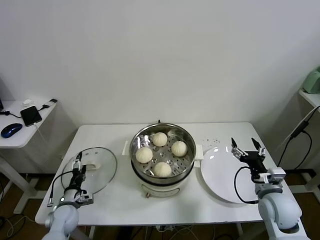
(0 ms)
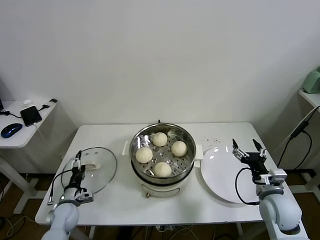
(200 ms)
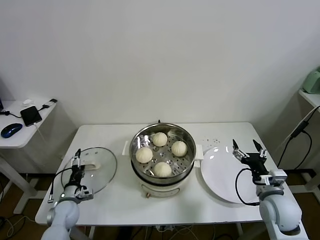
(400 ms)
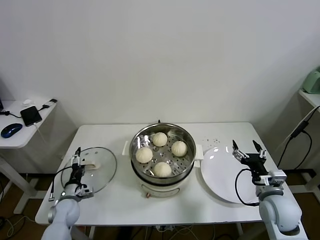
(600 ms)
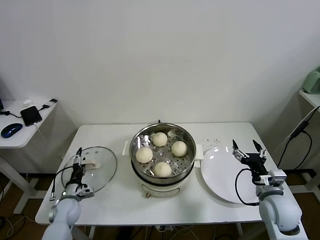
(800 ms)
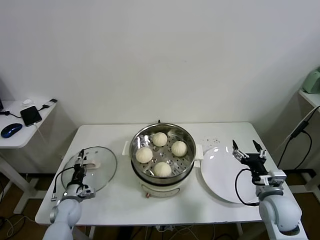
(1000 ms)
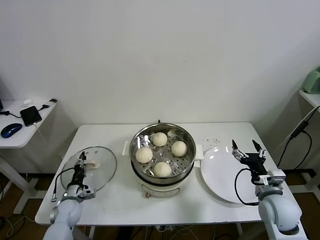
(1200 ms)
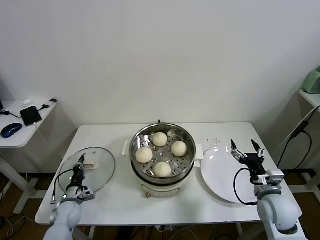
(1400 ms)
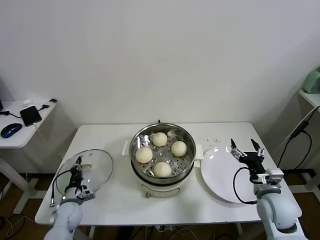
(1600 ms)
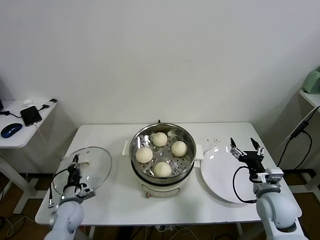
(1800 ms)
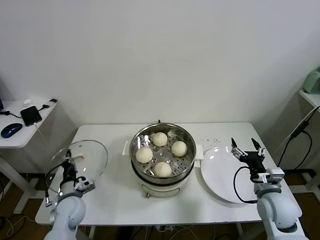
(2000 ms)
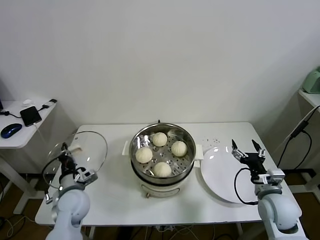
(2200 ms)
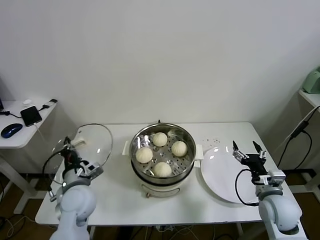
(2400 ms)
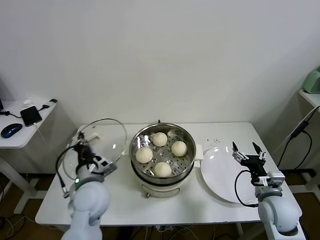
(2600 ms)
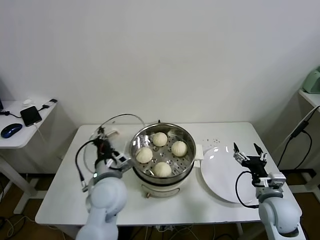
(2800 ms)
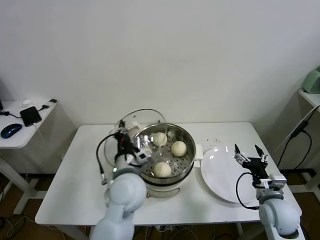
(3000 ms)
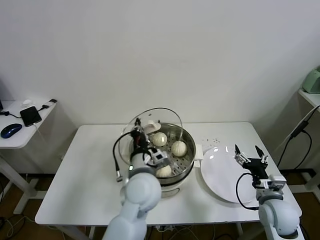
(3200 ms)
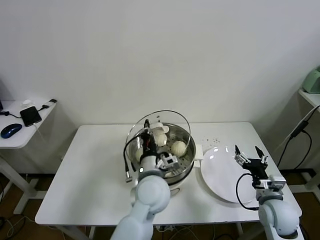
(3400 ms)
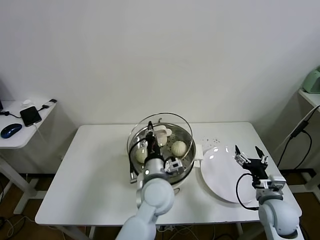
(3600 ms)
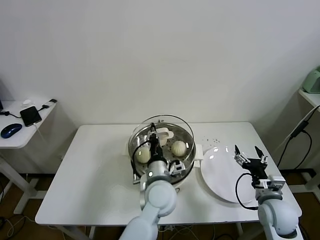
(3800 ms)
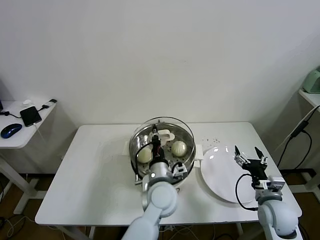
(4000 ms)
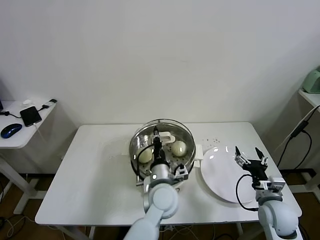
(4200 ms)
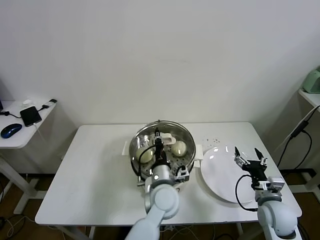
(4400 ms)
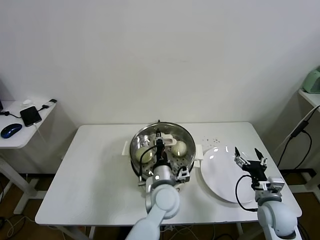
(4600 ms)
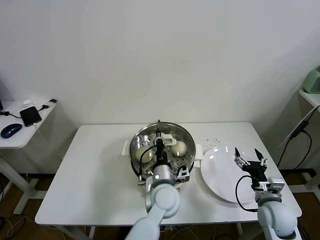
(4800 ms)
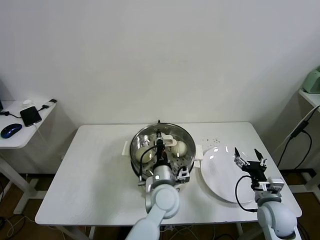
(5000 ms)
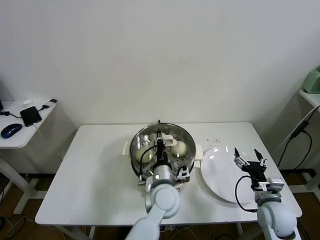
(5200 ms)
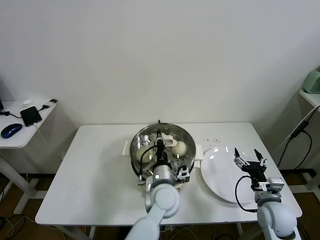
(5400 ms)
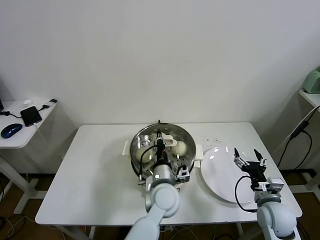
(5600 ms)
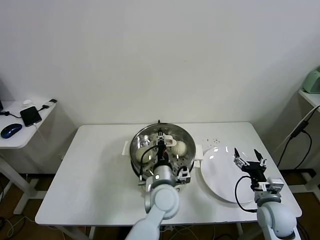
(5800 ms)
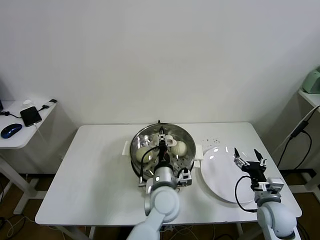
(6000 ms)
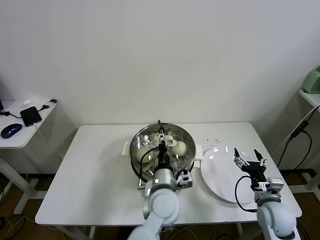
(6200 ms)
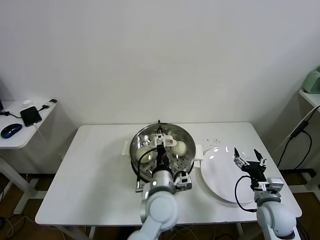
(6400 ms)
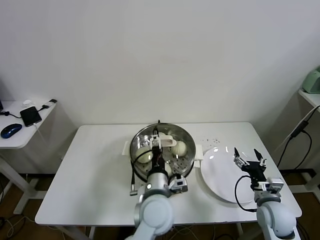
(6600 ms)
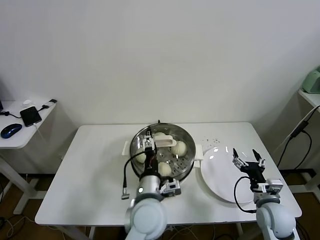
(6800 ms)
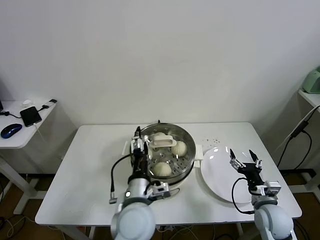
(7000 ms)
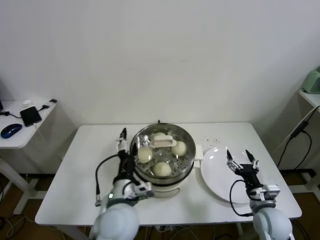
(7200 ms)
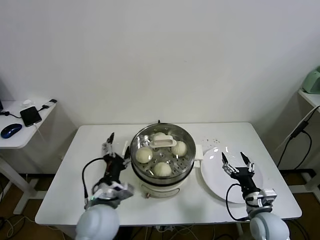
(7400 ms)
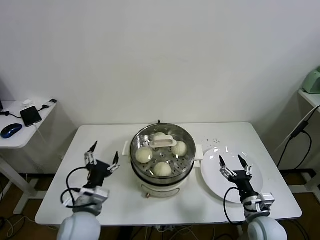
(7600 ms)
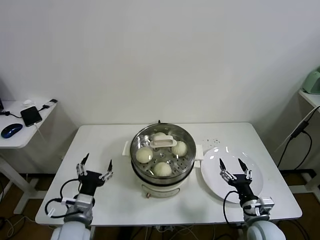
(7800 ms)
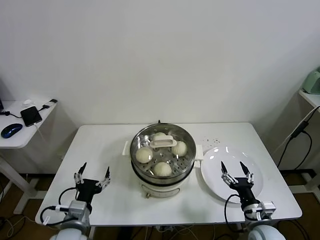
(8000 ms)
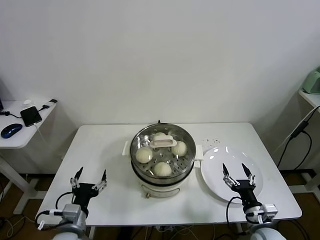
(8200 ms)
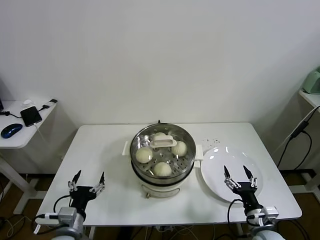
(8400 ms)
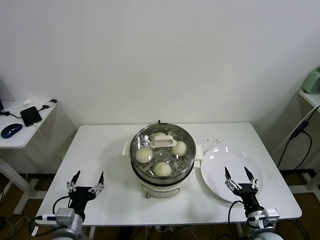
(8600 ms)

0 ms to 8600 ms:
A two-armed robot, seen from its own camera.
Task of the whole recording: take steamed baozi put them in steamer.
Step, 1600 ms to 5800 ms: Place the pot lid on the steamer with left gripper.
0 ms to 1400 ms: The left gripper closes up.
1400 ms to 2800 ms: The left gripper moves upward and to the right, roughly 35 cm.
2800 ms to 4400 ms: The left gripper shifts about 15 cm to the right.
4400 ms to 5800 ms: Both grippers stay put.
5800 ms to 7200 ms: The left gripper moves to the left, backward and upward, about 15 cm, and opens.
7200 ms to 8600 ms: The right gripper shifts some 5 cm backward. The left gripper goes approximately 20 cm to the left and downward.

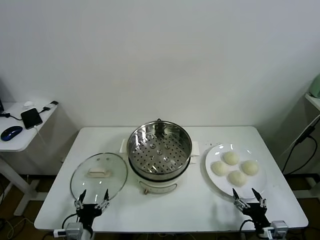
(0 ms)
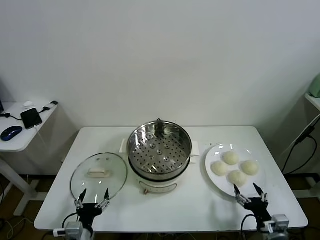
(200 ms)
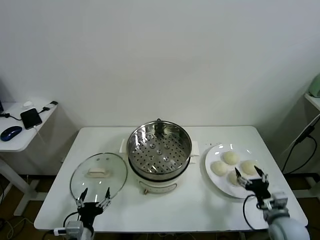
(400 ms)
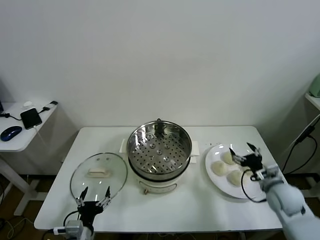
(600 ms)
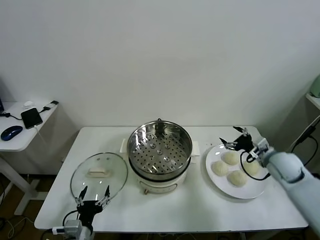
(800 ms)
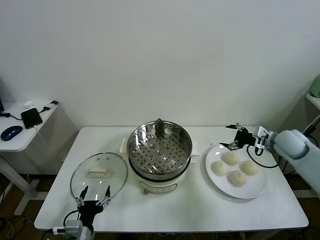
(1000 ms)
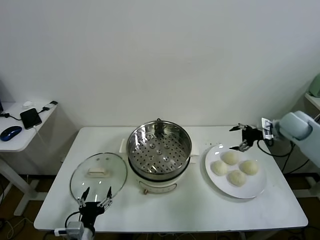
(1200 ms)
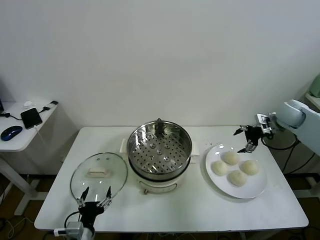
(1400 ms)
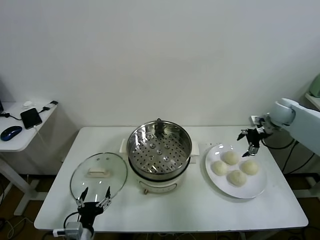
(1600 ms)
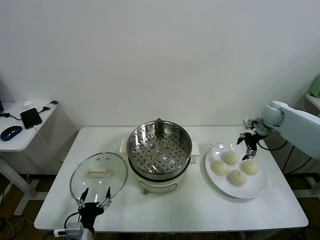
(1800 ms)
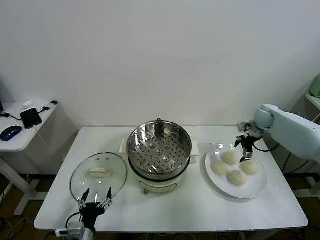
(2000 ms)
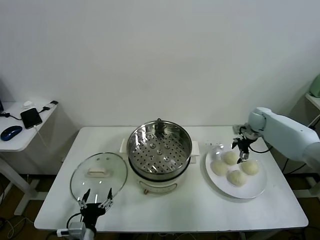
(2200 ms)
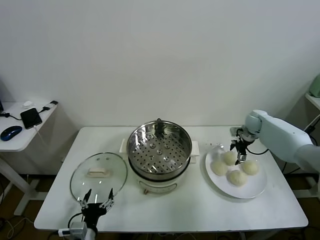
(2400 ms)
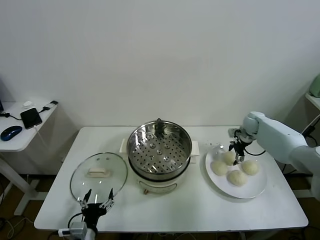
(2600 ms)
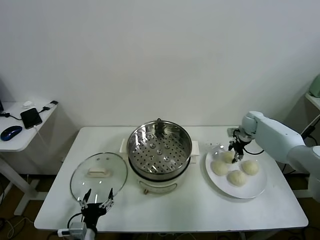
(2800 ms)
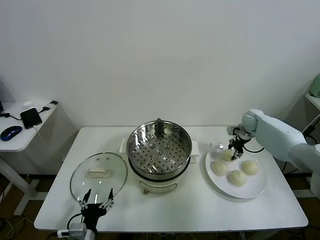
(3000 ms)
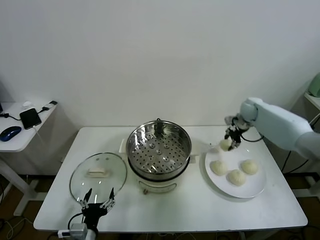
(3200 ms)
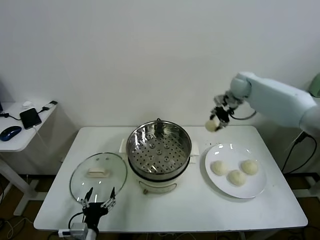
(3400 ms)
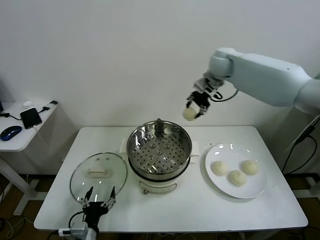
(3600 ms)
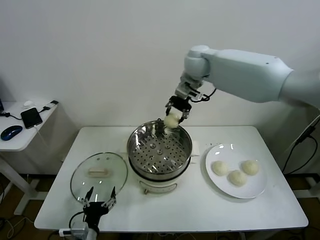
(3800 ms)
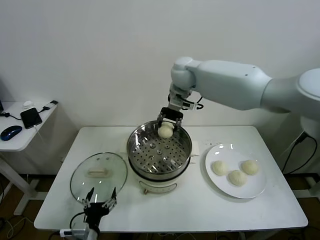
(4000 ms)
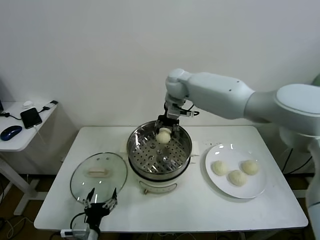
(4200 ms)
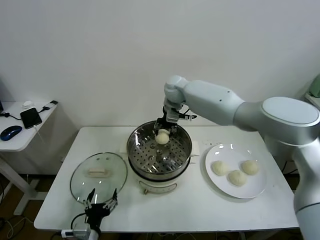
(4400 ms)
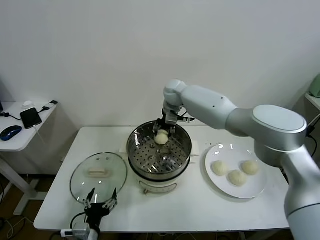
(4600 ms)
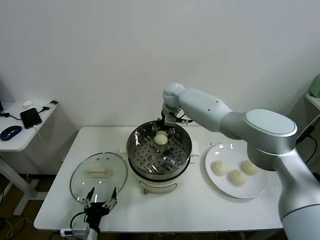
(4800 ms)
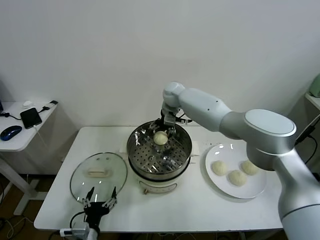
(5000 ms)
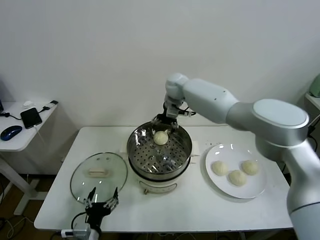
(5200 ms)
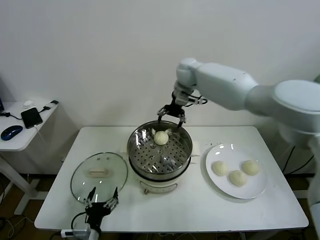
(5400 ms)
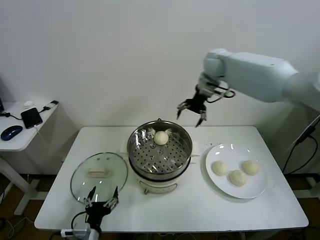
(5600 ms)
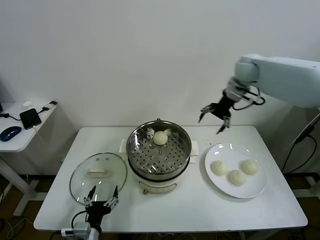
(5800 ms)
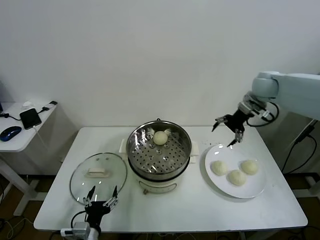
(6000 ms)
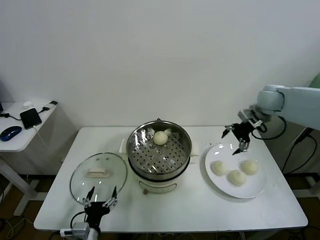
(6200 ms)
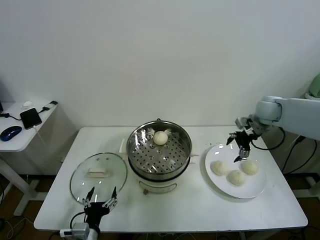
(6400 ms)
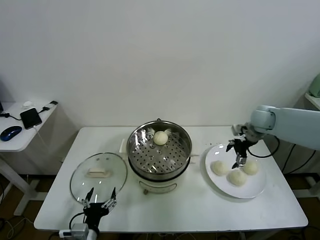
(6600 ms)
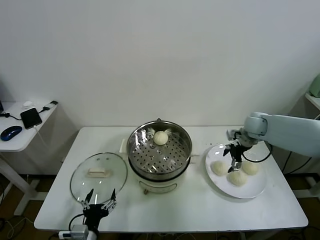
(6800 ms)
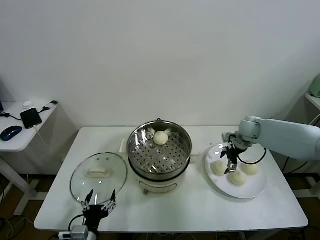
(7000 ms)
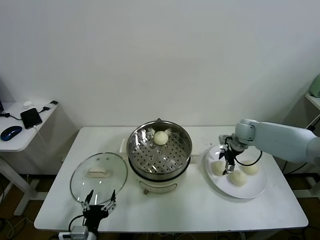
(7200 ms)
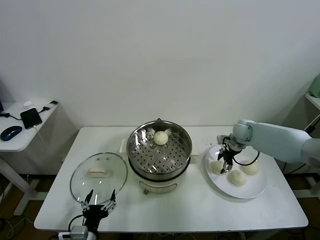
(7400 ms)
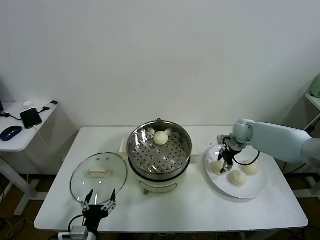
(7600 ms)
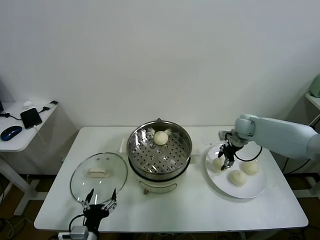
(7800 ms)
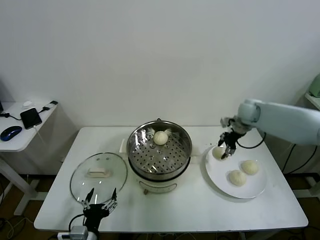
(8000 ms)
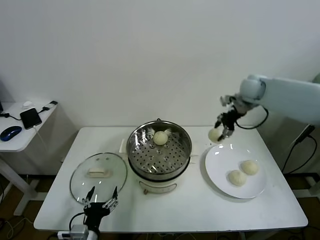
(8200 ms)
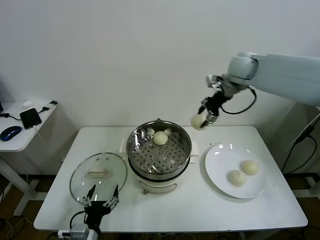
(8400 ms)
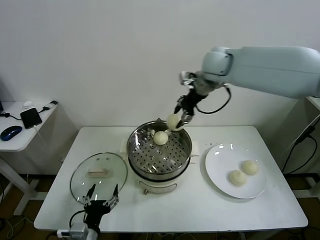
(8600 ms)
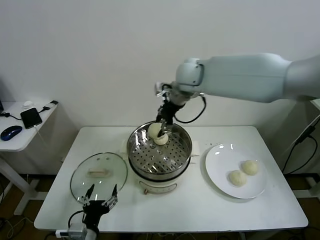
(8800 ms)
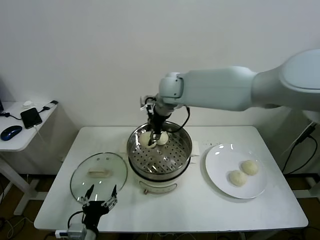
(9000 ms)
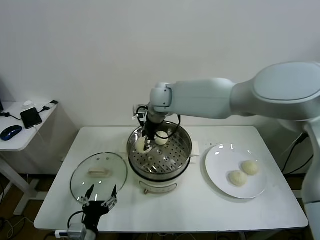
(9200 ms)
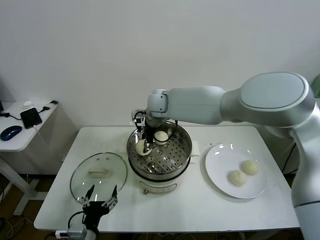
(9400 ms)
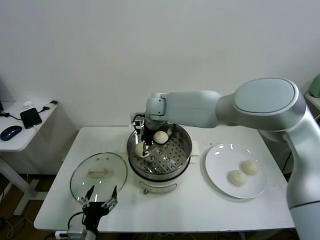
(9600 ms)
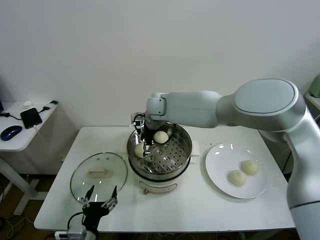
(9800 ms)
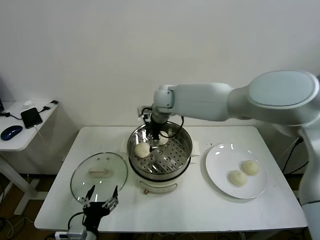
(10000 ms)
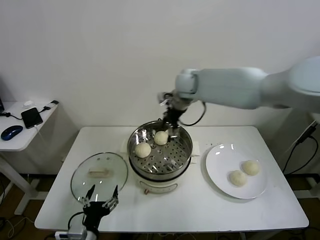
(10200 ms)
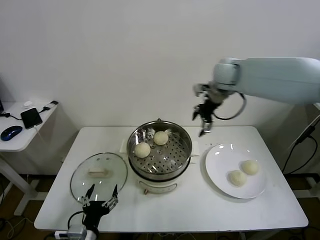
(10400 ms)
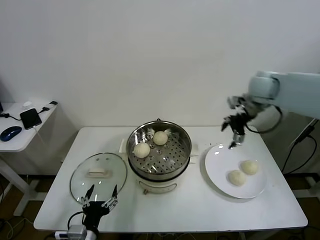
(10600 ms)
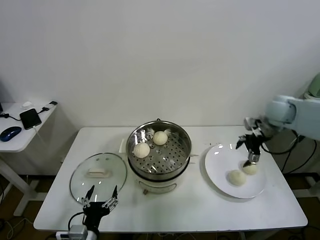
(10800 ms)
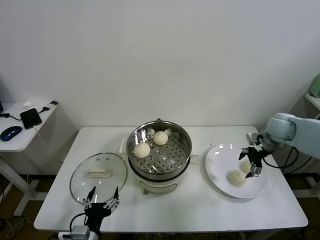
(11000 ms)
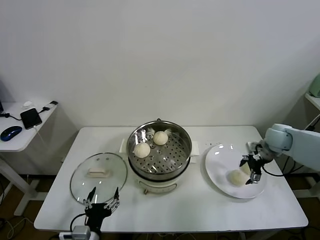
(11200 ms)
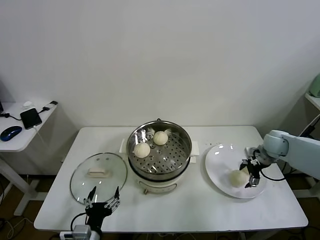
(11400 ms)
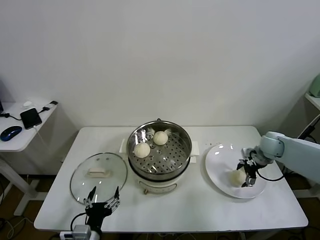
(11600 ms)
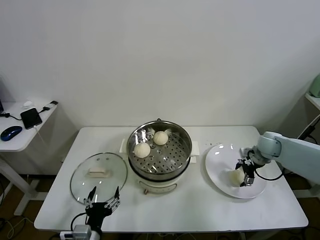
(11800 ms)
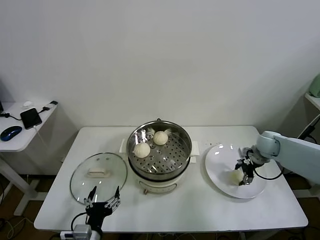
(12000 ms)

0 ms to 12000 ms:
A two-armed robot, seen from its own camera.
Task of the whole recording: take steamed baozi put them in steamer.
Step, 0 ms to 2600 ms: Grasp the baozi in the plate with right gripper.
Step, 2800 ms to 5000 ms: Place the baozi on the steamer with right gripper.
Step, 5200 ms to 7600 ms: Grasp the baozi in the plate with right gripper.
Step, 7800 ms to 9600 ms: Place the baozi on the steamer with right gripper.
Step, 9800 ms to 12000 ms: Grasp the baozi in the plate with right gripper.
1600 ms to 3000 ms: The right gripper heads downward, forward and to the left, covering approximately 10 cm, and closes.
3000 ms to 4400 ms: The right gripper goes about 35 cm to the left.
4400 ms to 6000 ms: The right gripper goes approximately 30 cm to the right, and opens up.
6000 ms to 7600 ms: The right gripper moves downward, roughly 20 cm, and closes.
7600 ms to 9000 ms: The right gripper moves to the left and upward, about 35 cm.
9000 ms to 10400 ms: The right gripper is displaced to the right by some 25 cm, and opens.
10400 ms to 12000 ms: The right gripper is displaced downward and to the right by approximately 30 cm, and closes its fingers.

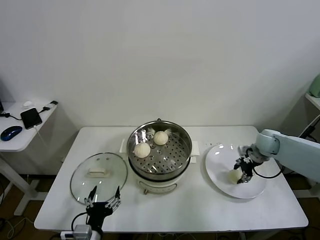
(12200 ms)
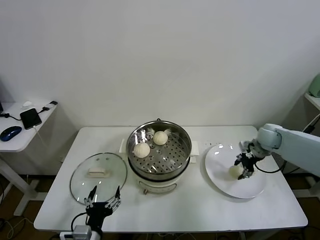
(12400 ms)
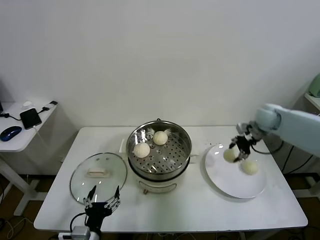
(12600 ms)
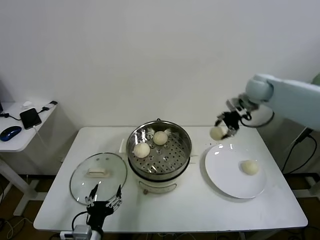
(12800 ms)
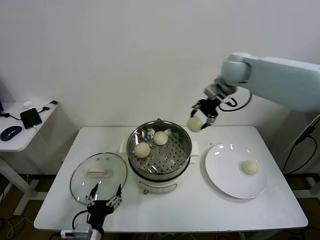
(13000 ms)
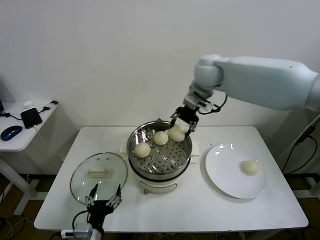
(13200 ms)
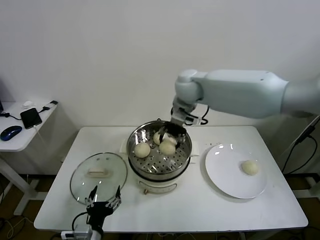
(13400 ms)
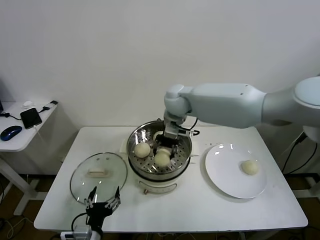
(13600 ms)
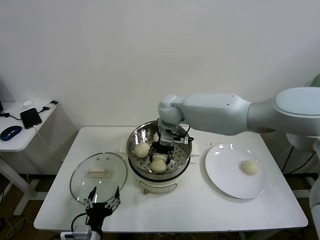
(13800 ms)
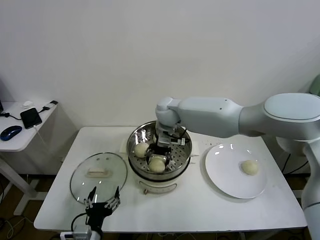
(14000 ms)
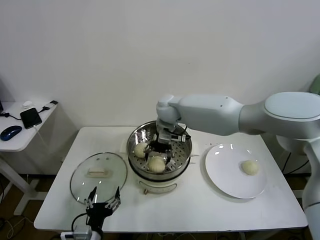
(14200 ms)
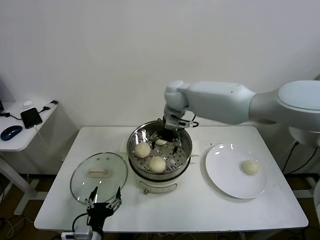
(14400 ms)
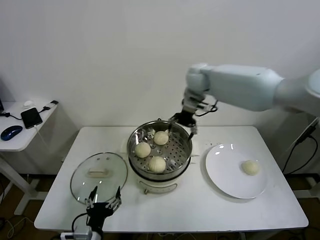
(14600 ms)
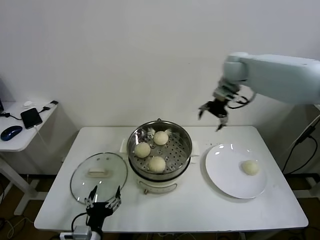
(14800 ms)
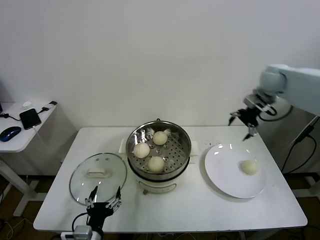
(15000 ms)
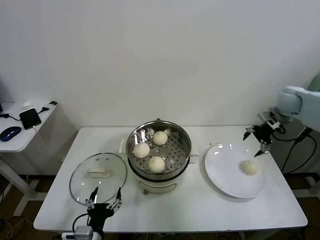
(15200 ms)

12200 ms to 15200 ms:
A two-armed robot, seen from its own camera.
Task of the whole recording: take steamed baozi put them in steamer.
Step, 12200 ms to 14000 ms: Place the baozi on the steamer with right gripper.
12200 ms to 13800 ms: The right gripper goes roughly 40 cm to the left.
13800 ms to 15200 ms: The right gripper heads to the right, covering approximately 40 cm, and opens up.
